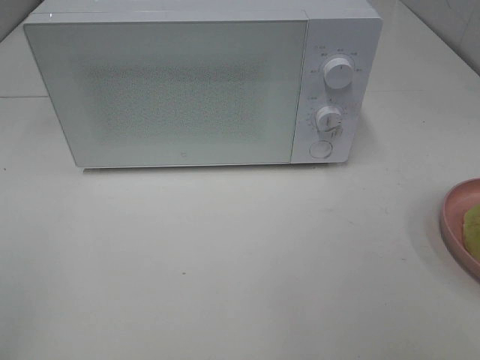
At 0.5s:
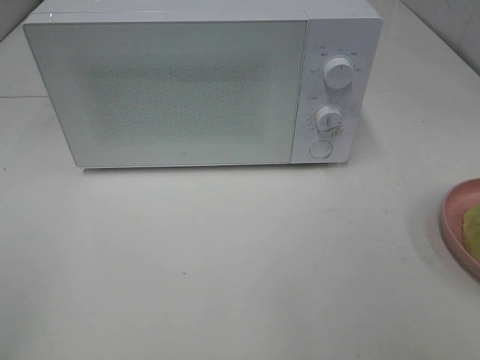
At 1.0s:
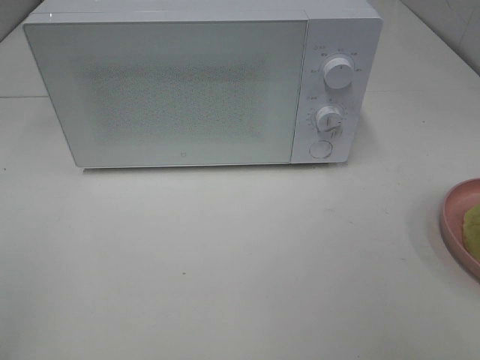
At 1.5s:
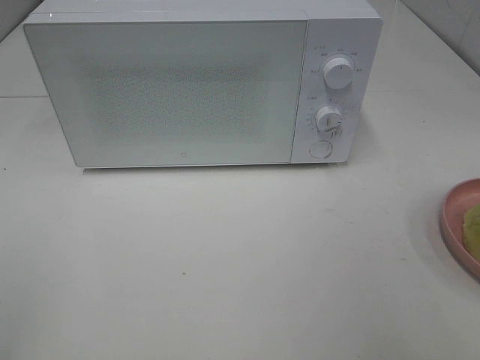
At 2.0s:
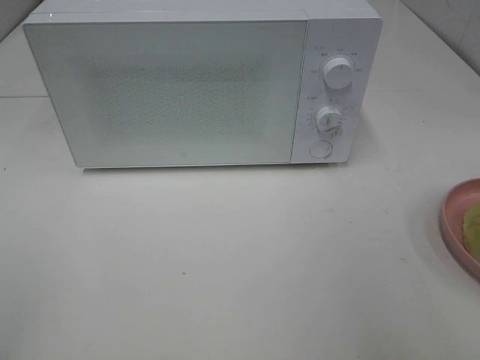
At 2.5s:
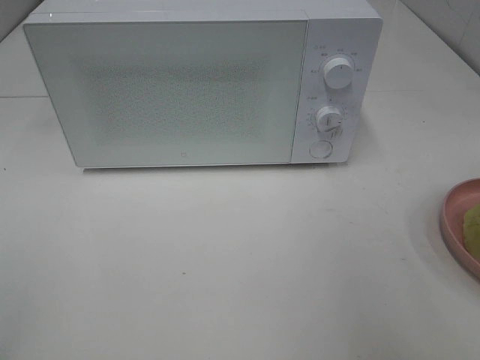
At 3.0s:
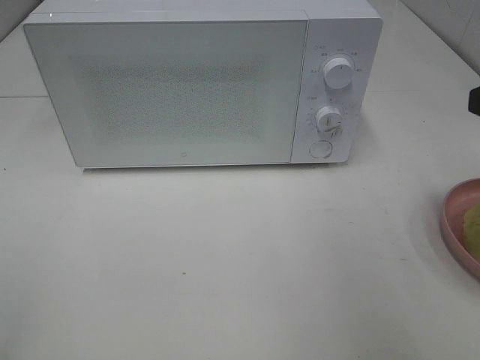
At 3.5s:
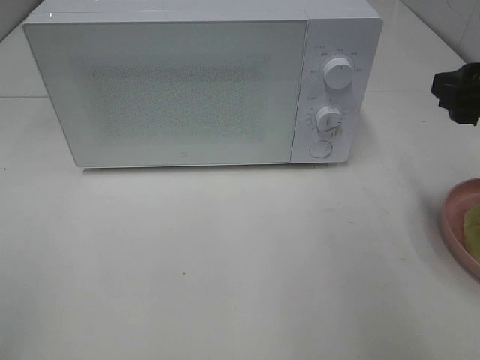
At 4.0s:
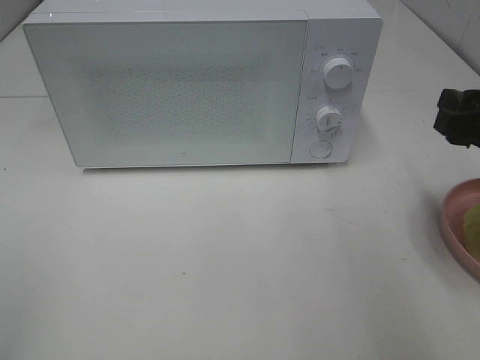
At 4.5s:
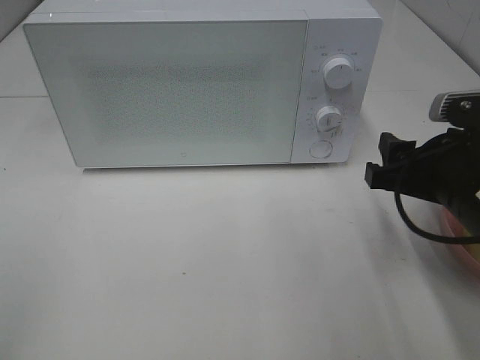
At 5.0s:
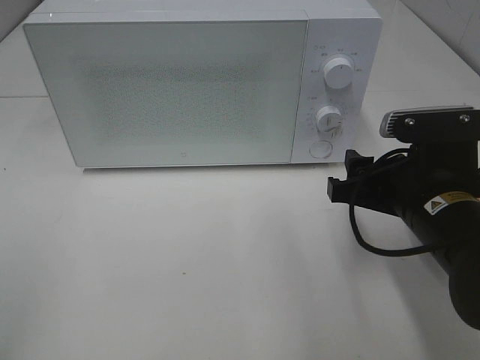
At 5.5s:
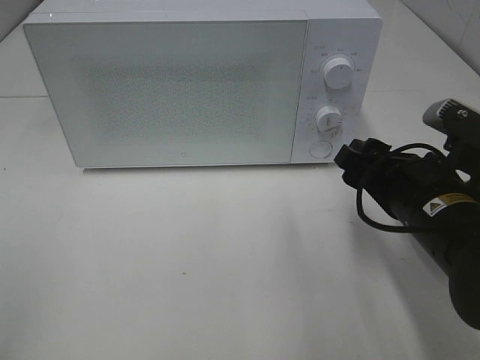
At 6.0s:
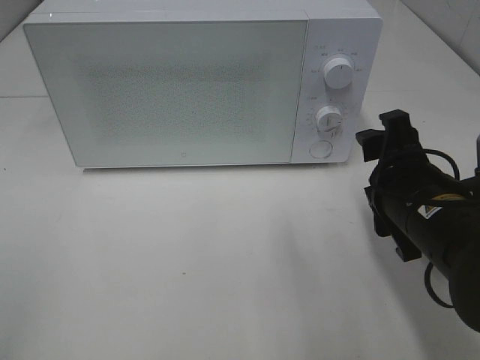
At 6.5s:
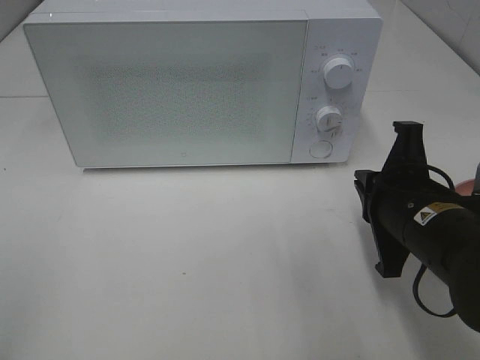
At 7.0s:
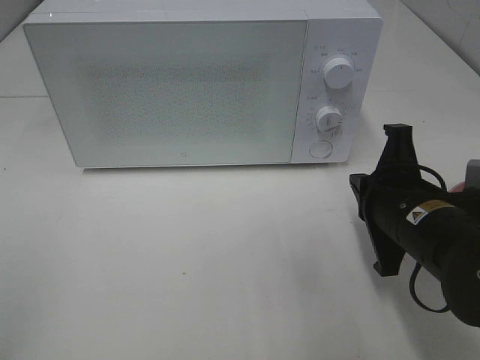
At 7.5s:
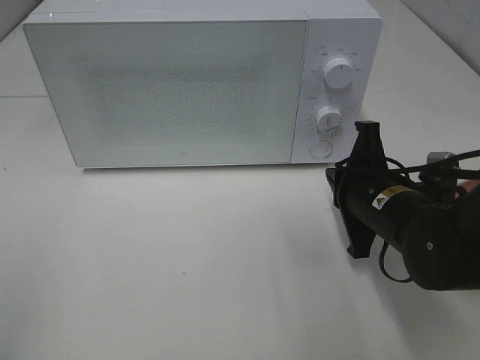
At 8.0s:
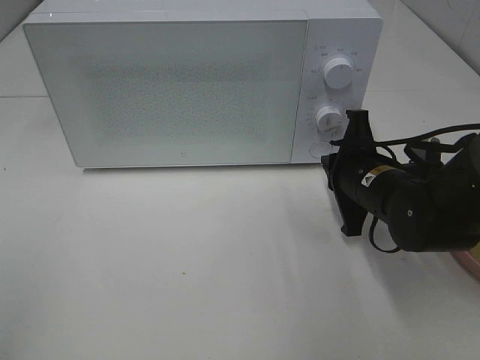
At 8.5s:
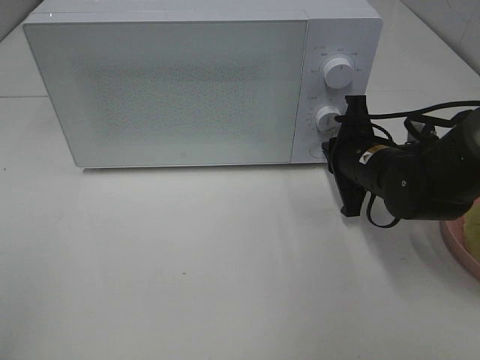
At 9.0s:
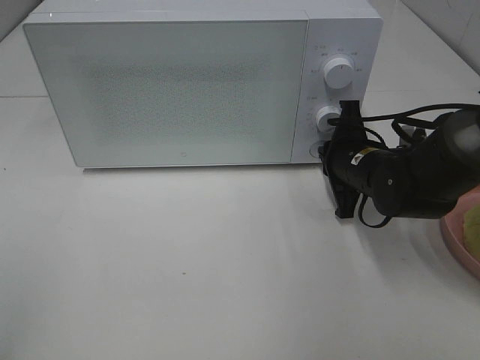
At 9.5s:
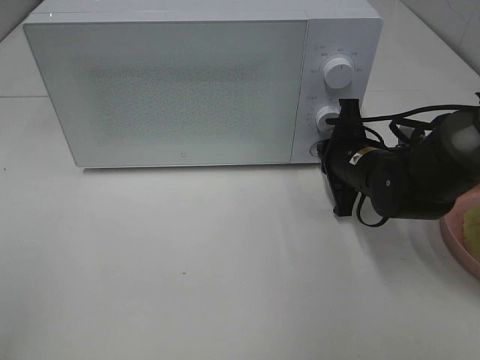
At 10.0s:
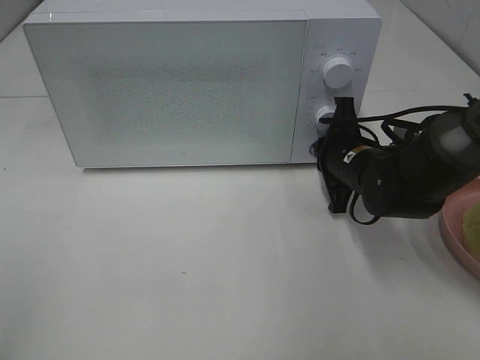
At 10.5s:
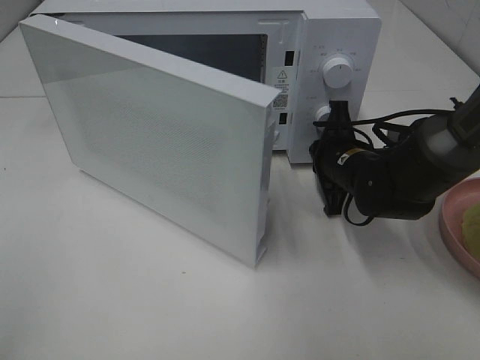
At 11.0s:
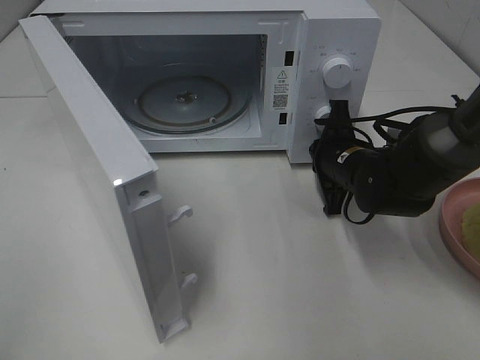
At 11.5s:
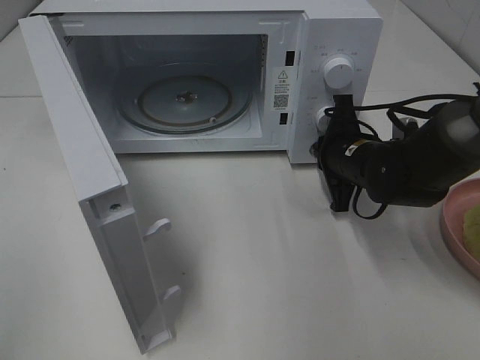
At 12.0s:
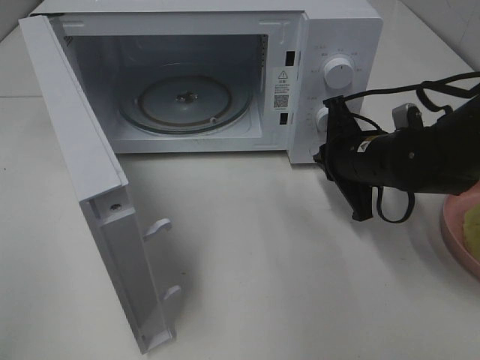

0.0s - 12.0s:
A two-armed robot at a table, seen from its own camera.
Task of the whole recording: Heat Sandwich.
2.0s - 4.0s: The right gripper heads forward and downward, covering roughly 15 cm.
4.0s - 6.0s: The right gripper moves to the left and downward, some 10 cm.
6.0s - 8.0s: The right gripper goes about 10 cm forward, and closes its fingers.
8.0s - 10.0s: The right gripper moves forward, approximately 5 cm.

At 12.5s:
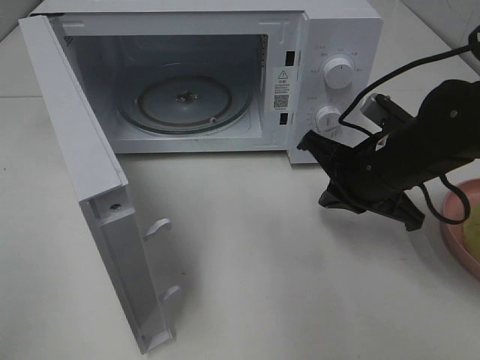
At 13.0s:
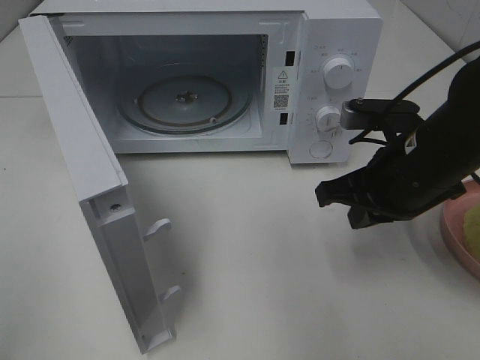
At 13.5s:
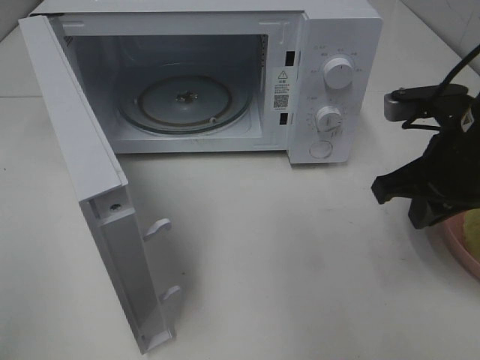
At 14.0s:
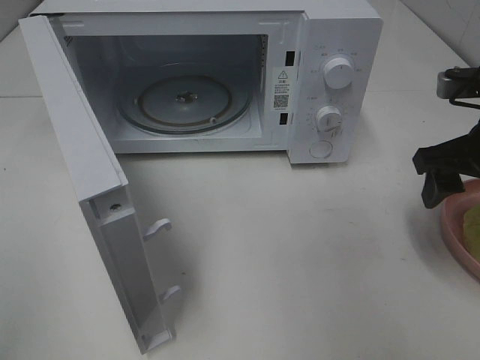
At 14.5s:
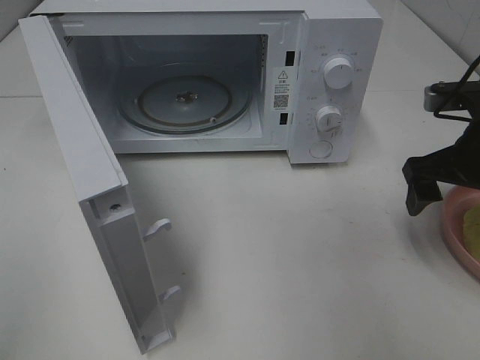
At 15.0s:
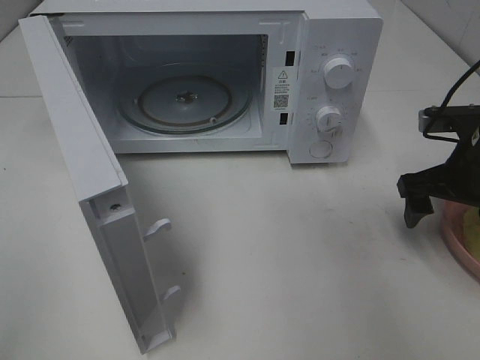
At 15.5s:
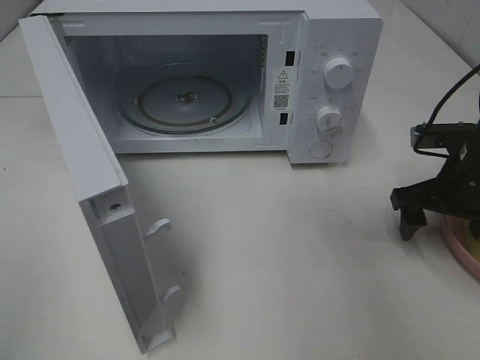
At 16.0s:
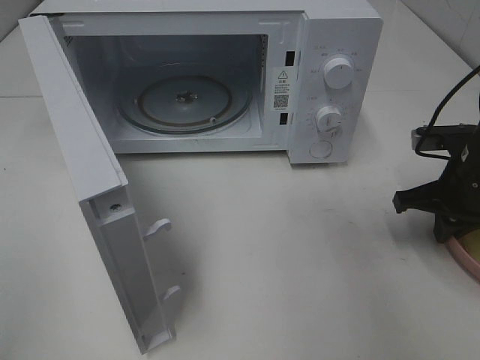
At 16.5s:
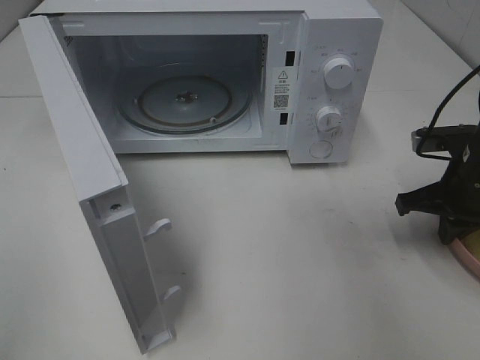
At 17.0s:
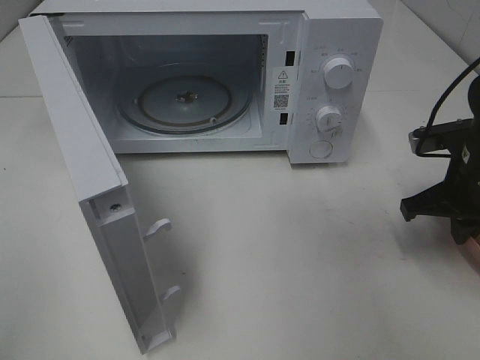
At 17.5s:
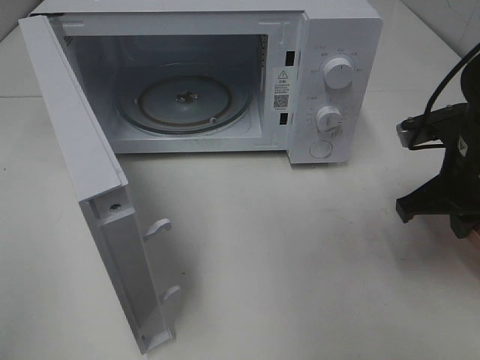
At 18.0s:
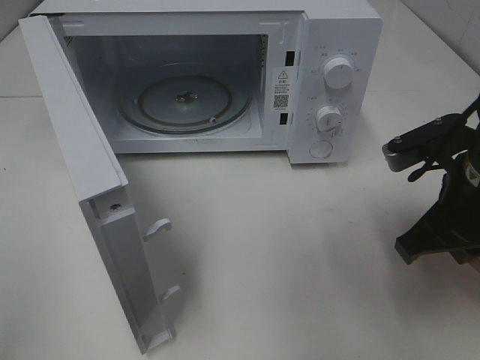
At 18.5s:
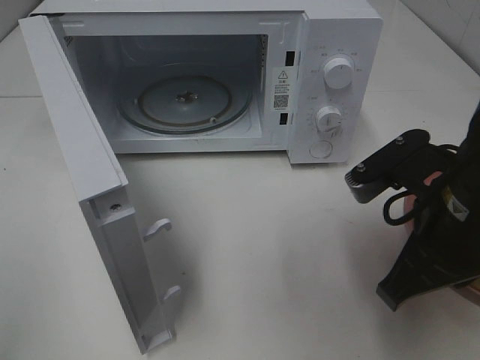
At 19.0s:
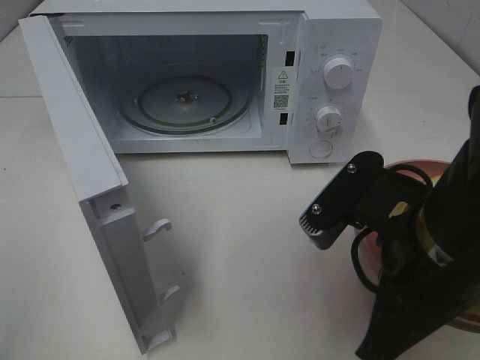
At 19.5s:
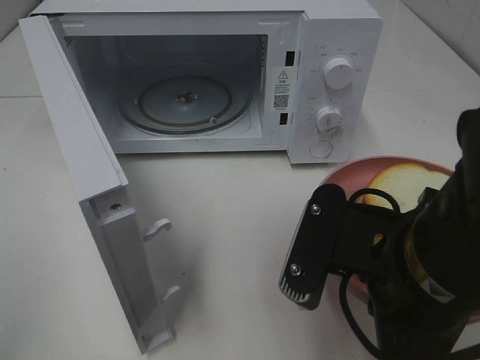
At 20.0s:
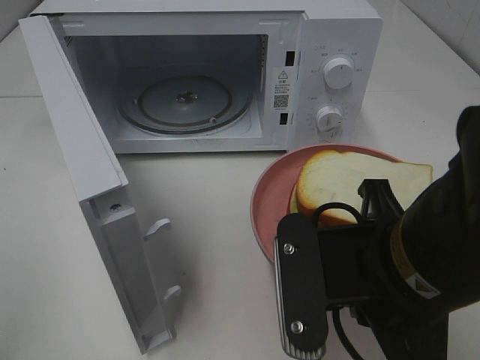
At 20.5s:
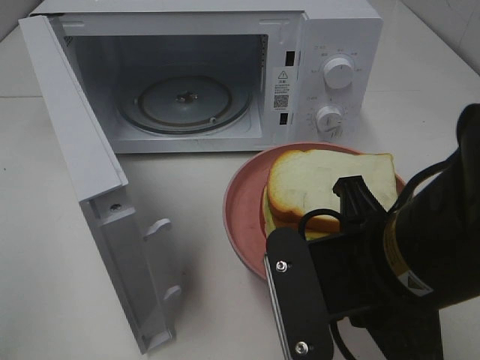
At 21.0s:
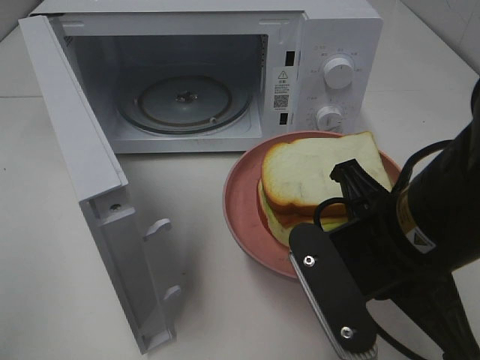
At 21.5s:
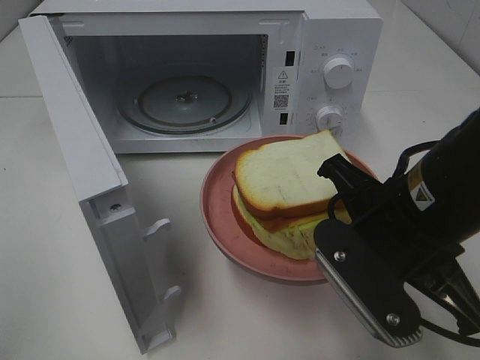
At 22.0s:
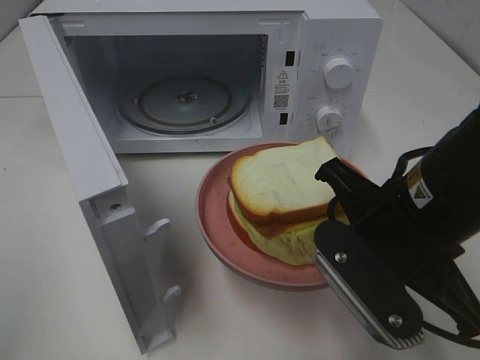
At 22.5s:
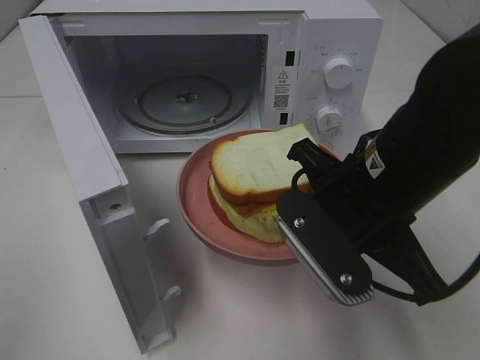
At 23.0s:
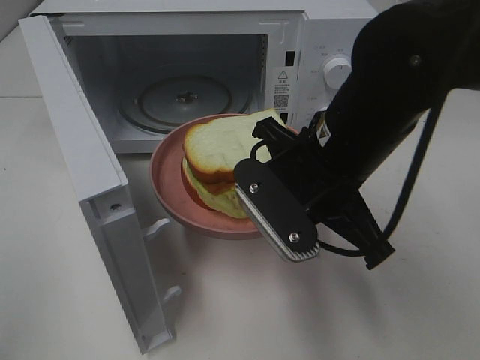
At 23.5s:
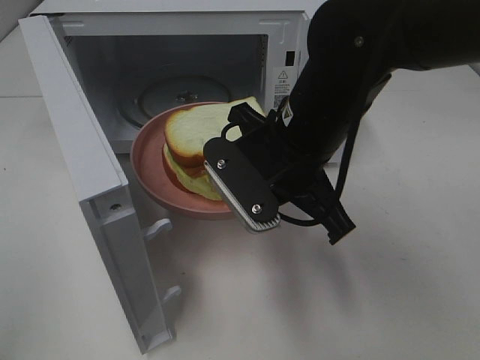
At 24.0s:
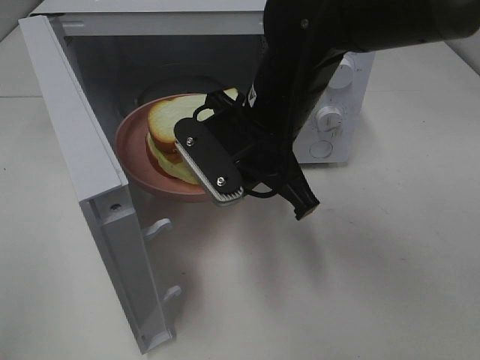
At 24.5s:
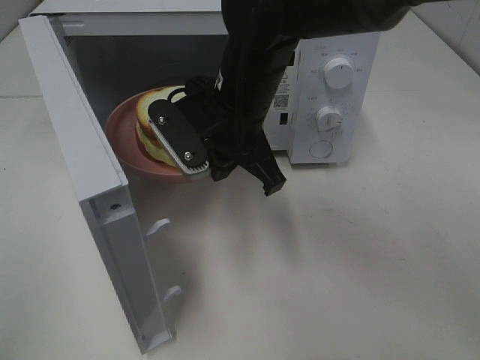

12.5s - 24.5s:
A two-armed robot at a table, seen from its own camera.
Task of the whole recording: Heat Sandwich.
Step, 12.5s - 16.5s: Right hand: grab the plate with the sandwich.
12.5s - 14.5s: The right gripper travels to the right by some 10 cm, and opens its fingers.
14.5s - 16.5s: The right gripper goes some 5 cm downward, and closes its fingers.
16.5s - 18.5s: The right gripper shifts about 20 cm backward, to the left and upward.
18.5s - 20.5s: The right gripper goes about 10 cm to the left and backward.
20.5s - 22.5s: The right gripper travels forward by roughly 10 cm.
22.5s - 24.5s: The right gripper heads forward and to the left, covering some 15 cm.

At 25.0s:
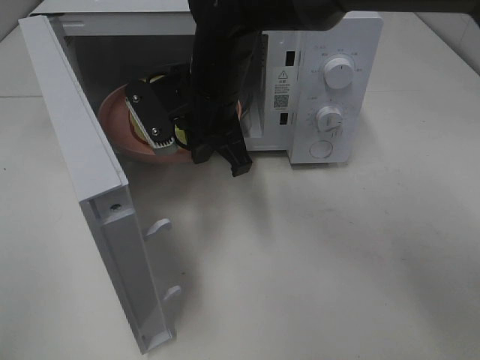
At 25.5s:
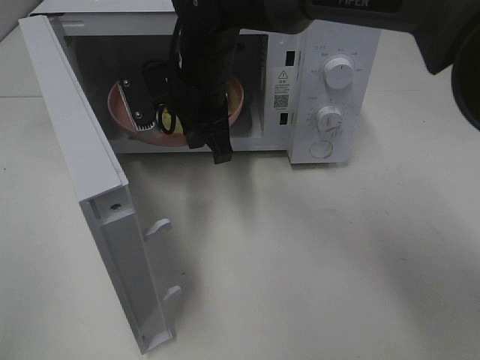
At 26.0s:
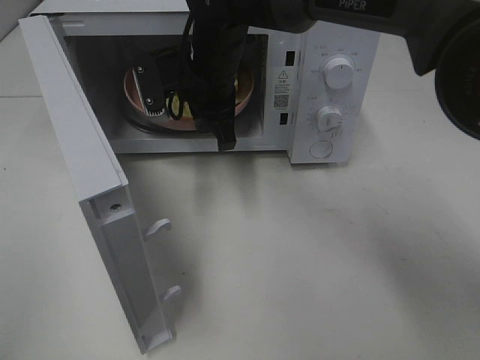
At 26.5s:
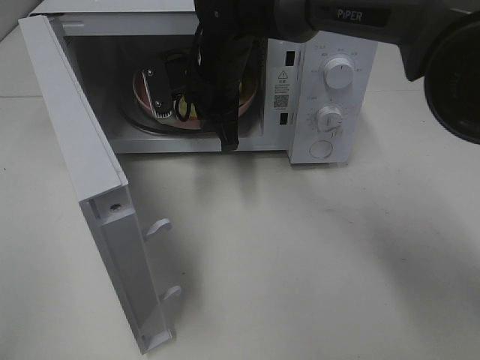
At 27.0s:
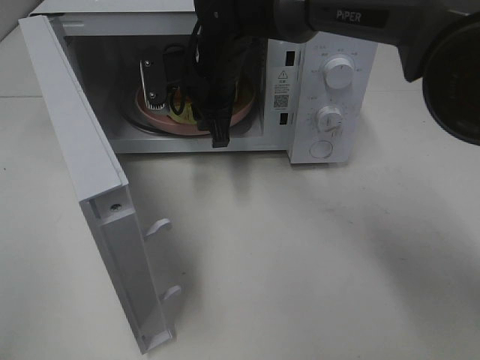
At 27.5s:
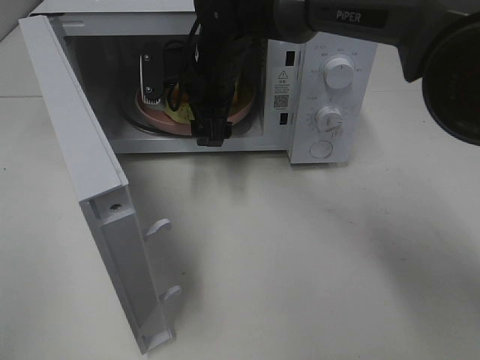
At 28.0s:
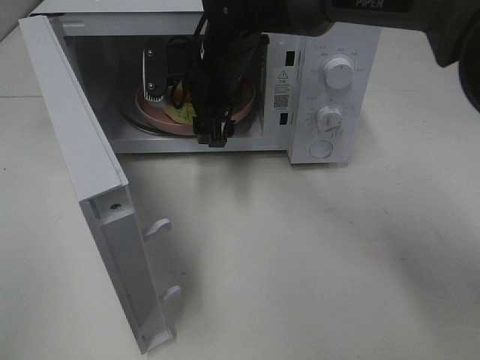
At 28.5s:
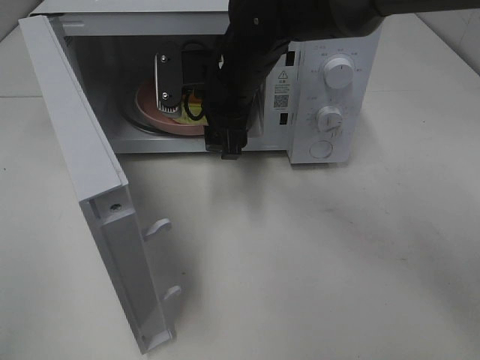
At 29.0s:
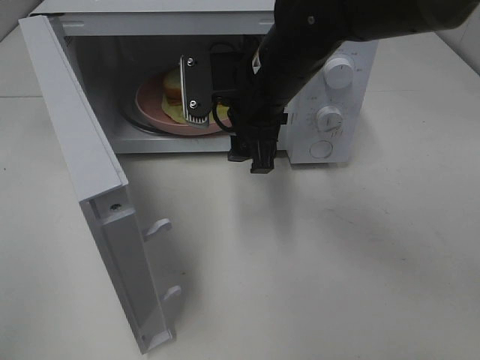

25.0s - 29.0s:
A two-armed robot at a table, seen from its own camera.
Task of the whole recording: Heat Sandwich.
Step, 25.0s - 28.0s: Right hand: place the plate in the microwave.
25.0s - 27.0s: The right gripper moves forward, roughly 5 cm, and opens its fingers.
27.0s - 29.0s: The right gripper shifts some 10 cm backward and to the right, and opens its fingers.
